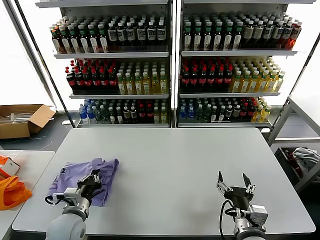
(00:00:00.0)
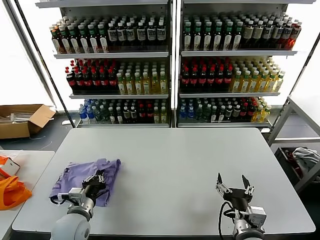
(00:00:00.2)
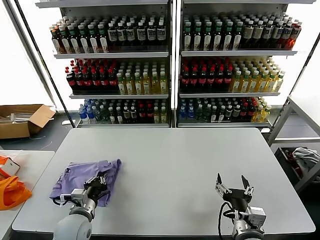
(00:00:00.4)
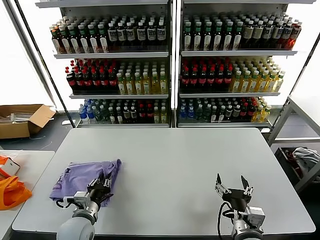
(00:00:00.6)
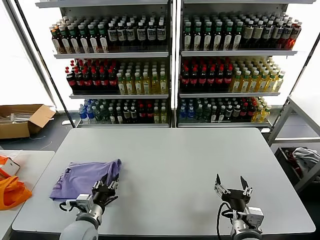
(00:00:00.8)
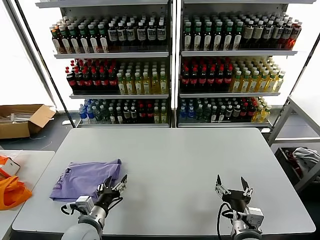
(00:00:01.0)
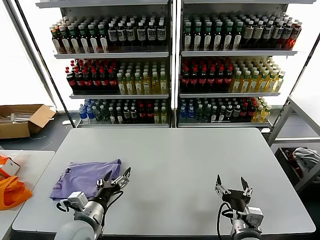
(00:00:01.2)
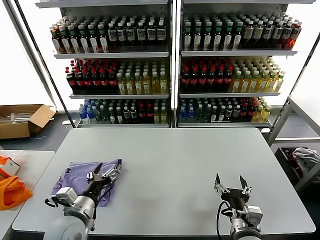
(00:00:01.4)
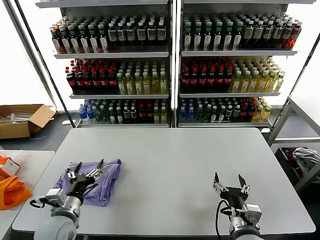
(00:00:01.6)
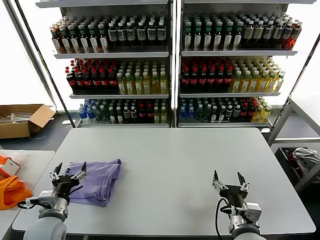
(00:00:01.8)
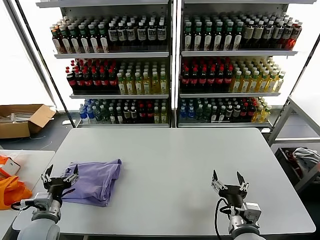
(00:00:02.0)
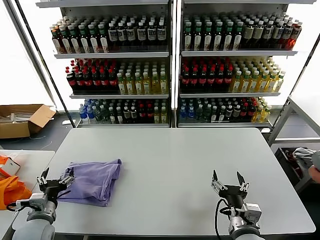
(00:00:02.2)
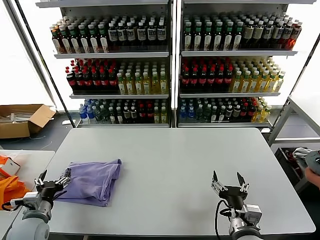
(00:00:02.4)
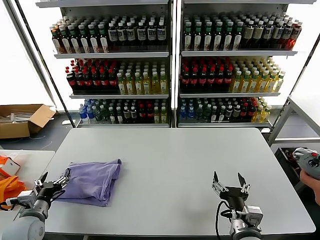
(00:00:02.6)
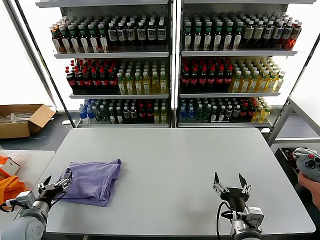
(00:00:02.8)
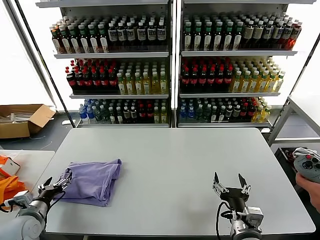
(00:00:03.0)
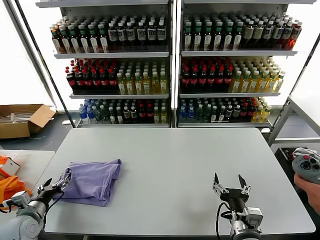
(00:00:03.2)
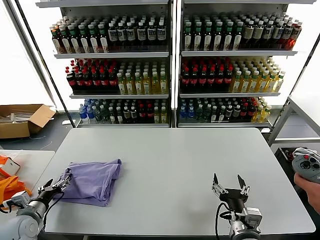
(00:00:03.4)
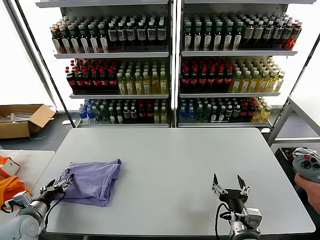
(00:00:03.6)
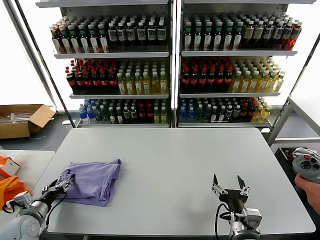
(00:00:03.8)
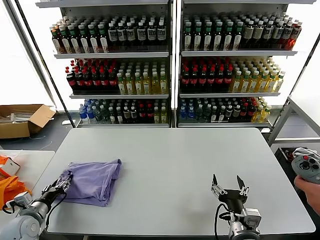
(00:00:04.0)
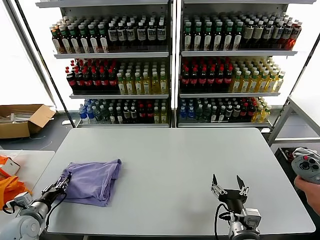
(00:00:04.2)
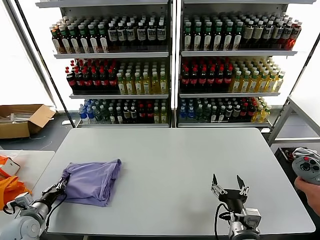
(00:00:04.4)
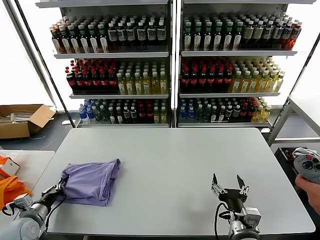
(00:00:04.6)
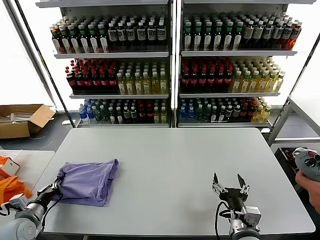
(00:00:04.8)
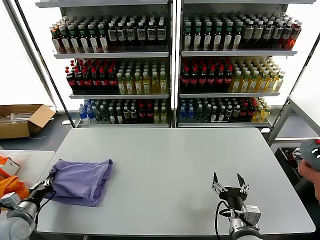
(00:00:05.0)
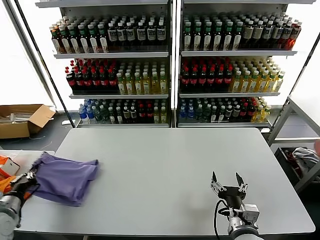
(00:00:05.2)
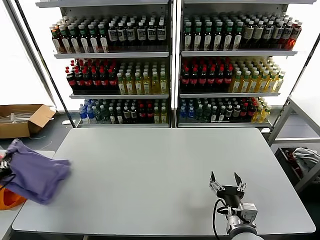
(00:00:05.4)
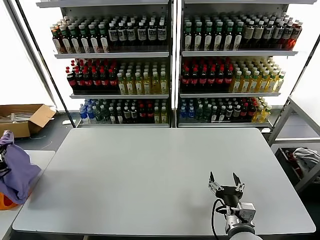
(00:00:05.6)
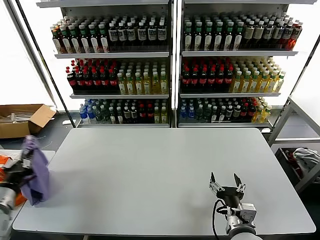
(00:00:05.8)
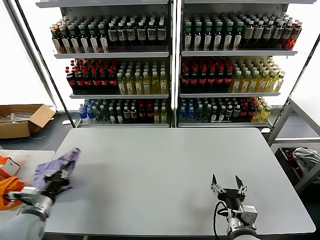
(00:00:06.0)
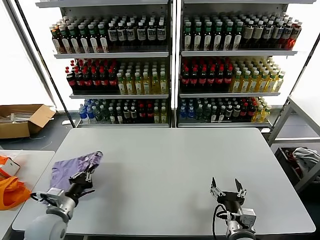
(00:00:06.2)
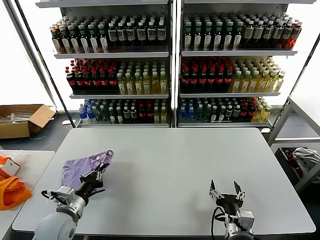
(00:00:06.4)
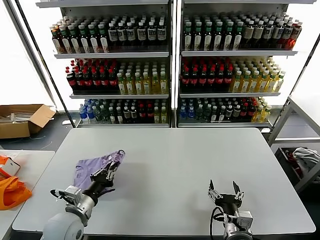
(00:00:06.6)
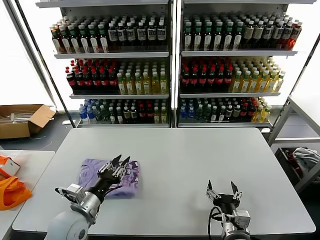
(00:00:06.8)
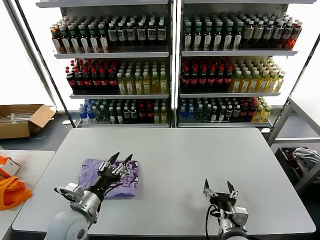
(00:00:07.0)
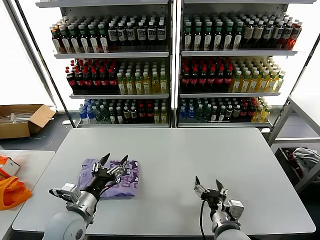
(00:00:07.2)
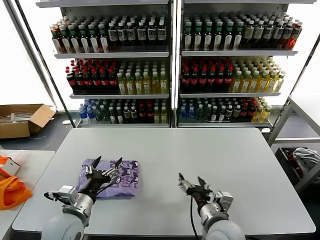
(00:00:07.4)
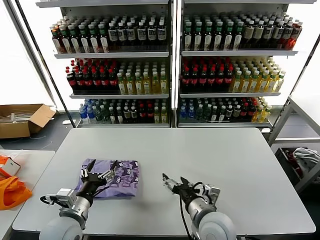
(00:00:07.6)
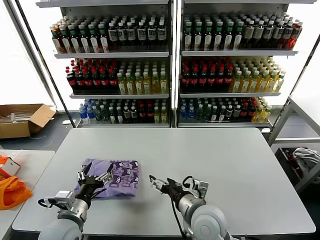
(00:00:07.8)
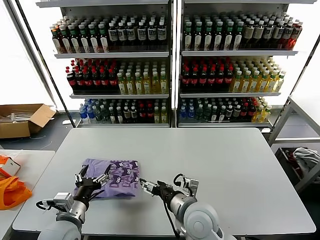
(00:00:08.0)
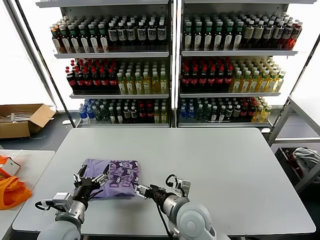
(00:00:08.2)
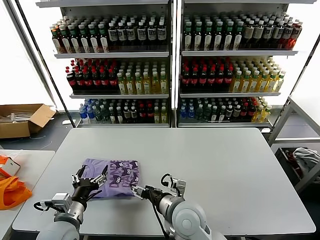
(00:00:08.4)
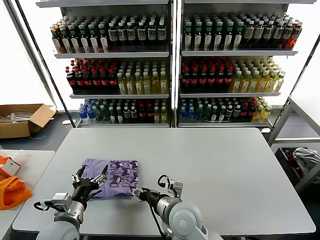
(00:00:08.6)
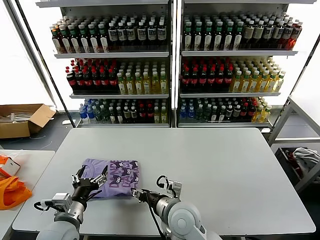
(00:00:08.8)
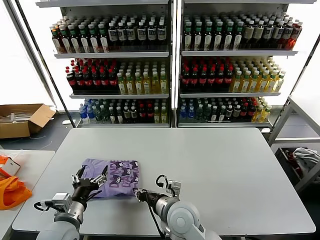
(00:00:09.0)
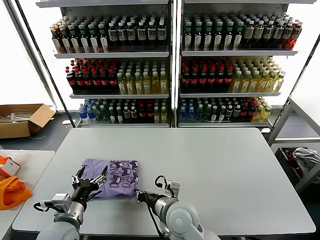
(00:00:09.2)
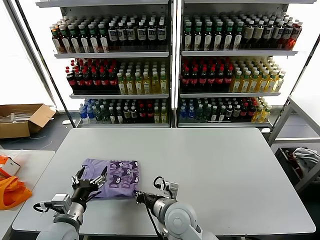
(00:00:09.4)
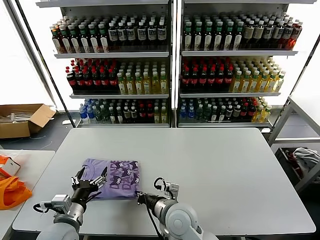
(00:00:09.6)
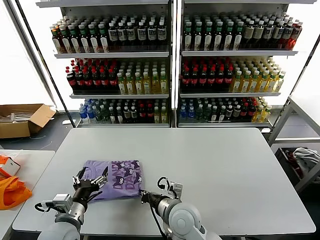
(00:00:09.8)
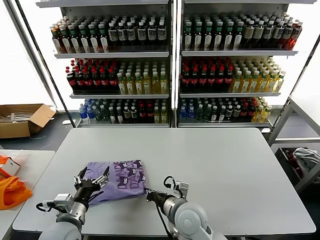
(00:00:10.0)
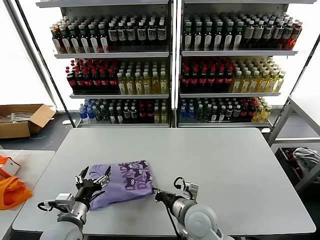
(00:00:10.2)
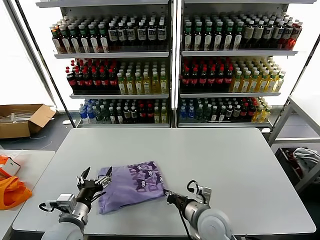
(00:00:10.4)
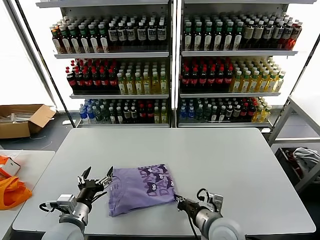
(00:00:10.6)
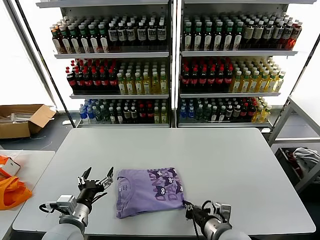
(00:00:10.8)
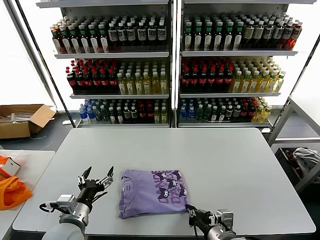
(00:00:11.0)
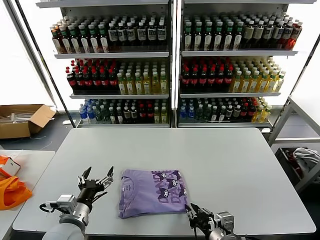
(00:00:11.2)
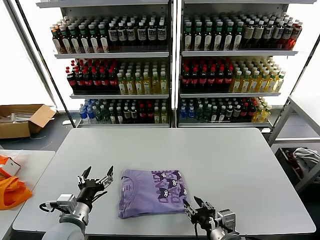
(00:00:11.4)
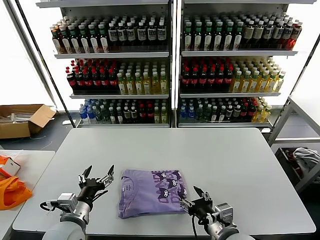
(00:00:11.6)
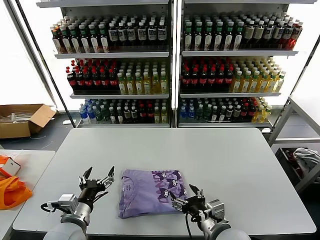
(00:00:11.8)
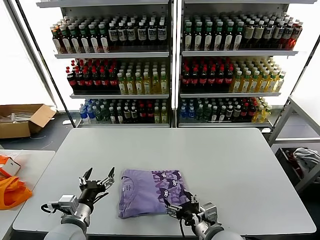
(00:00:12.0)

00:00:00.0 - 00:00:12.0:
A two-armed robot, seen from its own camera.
Task of the whole recording: fold and organize the clothes.
Step, 00:00:01.2 - 00:00:06.8: Flip the folded clothes over with left gripper.
00:00:00.0 - 00:00:01.6: The left gripper opens up.
00:00:01.6 - 00:00:03.0: The left gripper heads to the left, covering approximately 15 cm.
00:00:03.0 - 00:00:04.4: The left gripper closes its fingers.
00:00:04.4 - 00:00:06.0: The left gripper heads upward and to the right, covering roughly 10 cm.
00:00:06.0 - 00:00:07.6: The right gripper shifts about 10 cm to the left and forward; the left gripper goes approximately 15 cm to the right, and opens its fingers.
00:00:07.6 - 00:00:09.0: The right gripper heads to the left, covering roughly 10 cm, and closes up.
00:00:09.0 - 00:00:10.4: The right gripper heads to the right, covering some 10 cm, and closes its fingers.
00:00:10.4 - 00:00:12.0: The right gripper moves backward, roughly 5 cm, and opens.

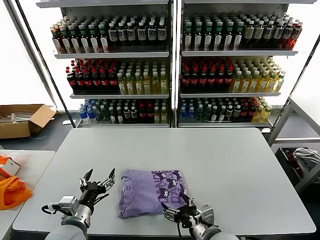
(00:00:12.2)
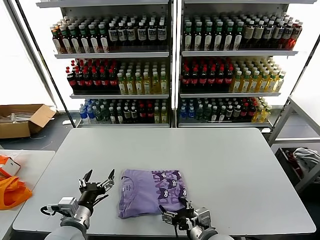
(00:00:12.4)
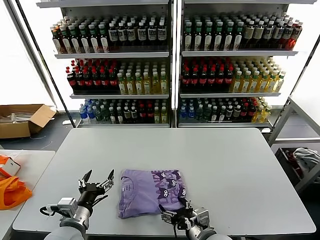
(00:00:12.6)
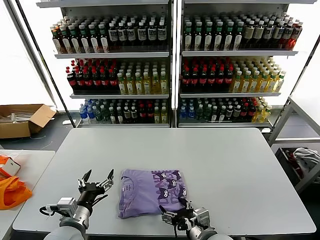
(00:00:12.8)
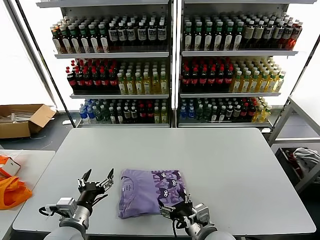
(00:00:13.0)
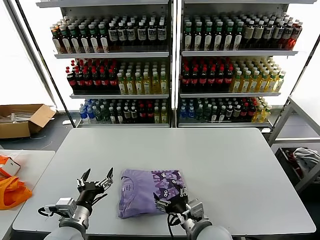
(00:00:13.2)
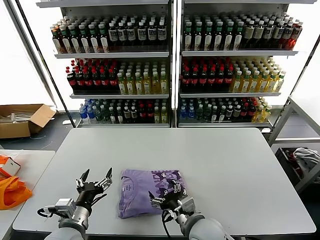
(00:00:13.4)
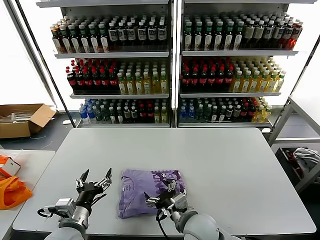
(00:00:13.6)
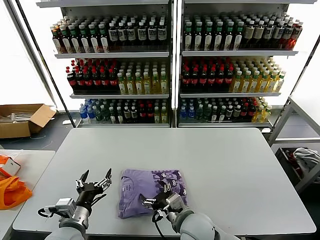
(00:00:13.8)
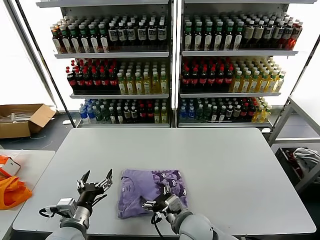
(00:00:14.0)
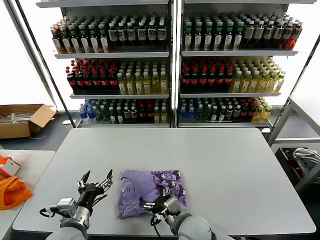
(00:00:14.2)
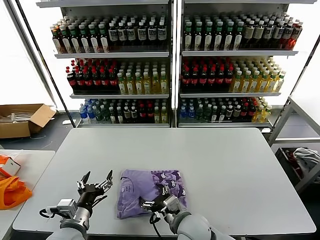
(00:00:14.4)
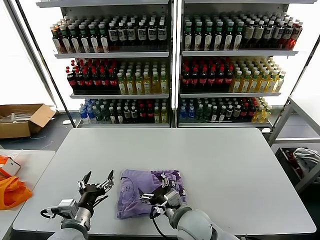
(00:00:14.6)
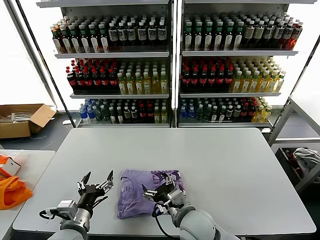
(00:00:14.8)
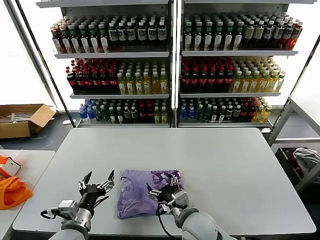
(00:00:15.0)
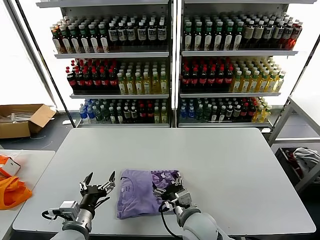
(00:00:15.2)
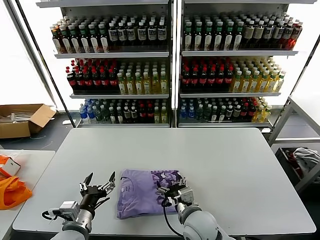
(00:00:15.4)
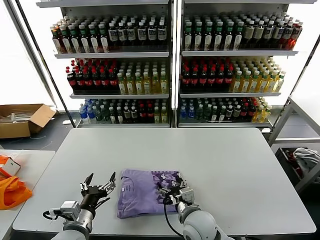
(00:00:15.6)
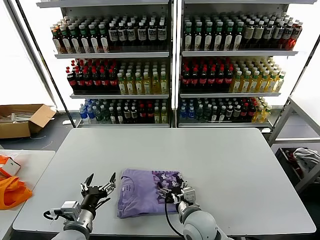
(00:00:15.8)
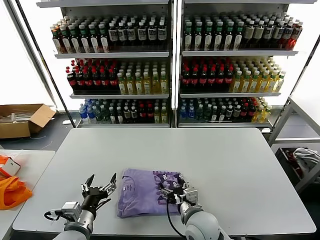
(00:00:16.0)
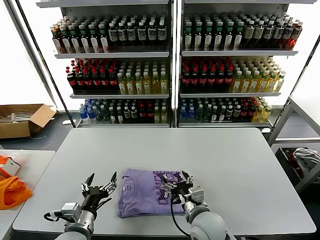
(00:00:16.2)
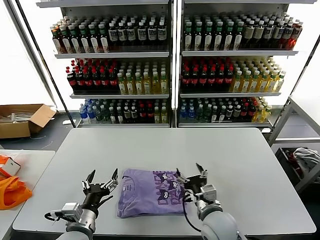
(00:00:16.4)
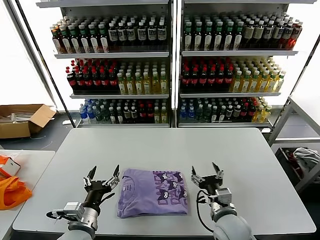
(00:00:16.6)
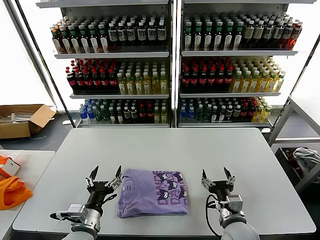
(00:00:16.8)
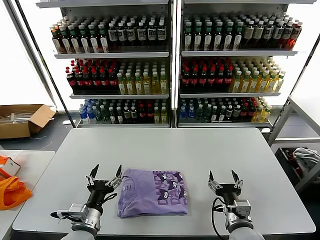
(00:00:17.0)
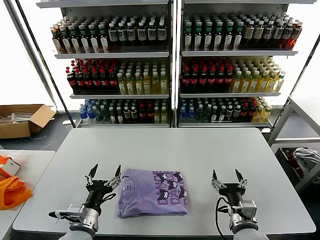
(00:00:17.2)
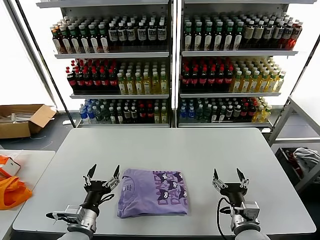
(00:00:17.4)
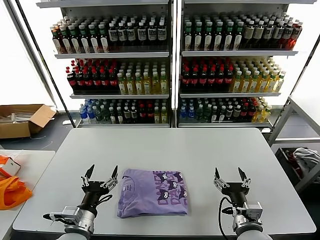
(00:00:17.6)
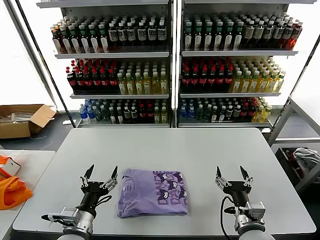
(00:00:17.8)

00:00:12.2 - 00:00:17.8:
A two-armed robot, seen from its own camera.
Task of the whole recording: fold and organize the clothes.
Step, 00:00:12.2 - 00:00:16.2: Drag the clothes to the center of the table.
00:00:12.2 - 00:00:13.6: The right gripper heads to the left, covering some 5 cm.
00:00:13.6 - 00:00:15.0: The grippers make only small movements.
00:00:15.0 - 00:00:16.4: The right gripper shifts approximately 5 cm to the right.
00:00:16.4 - 00:00:17.8: The right gripper goes roughly 10 cm to the right and backward.
